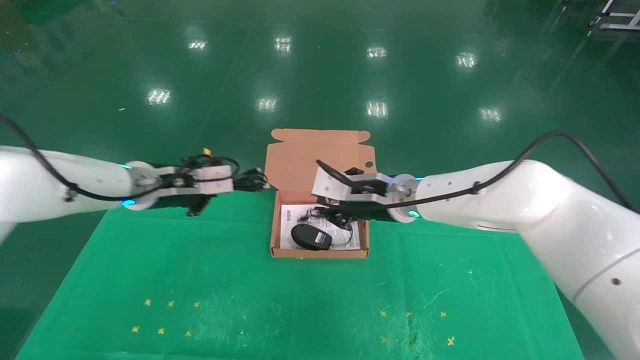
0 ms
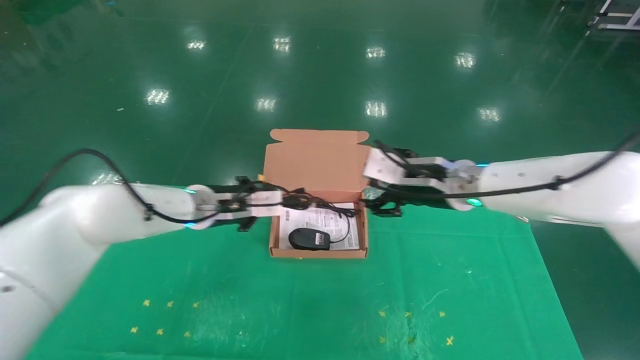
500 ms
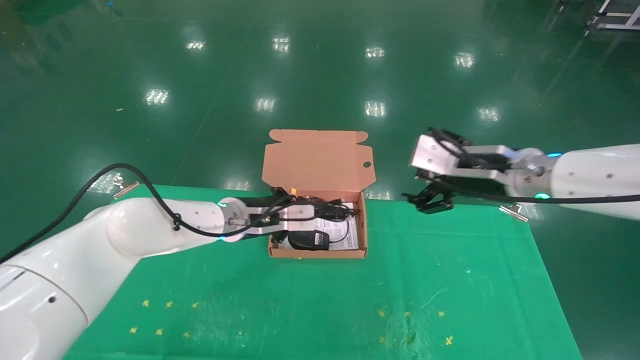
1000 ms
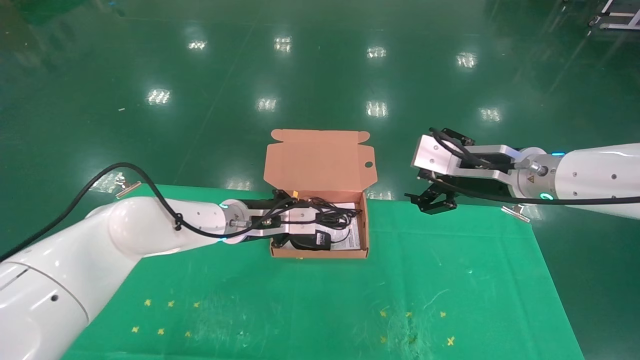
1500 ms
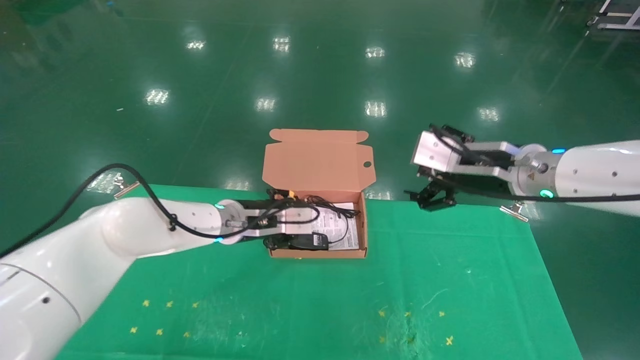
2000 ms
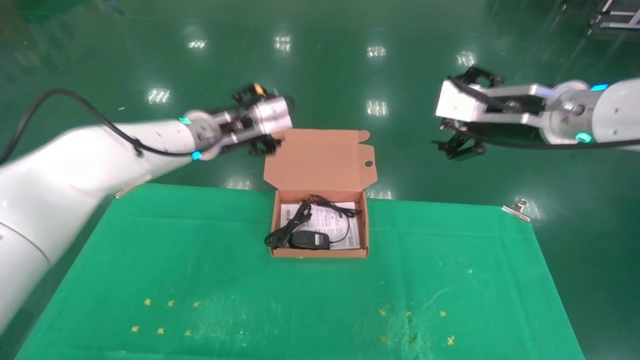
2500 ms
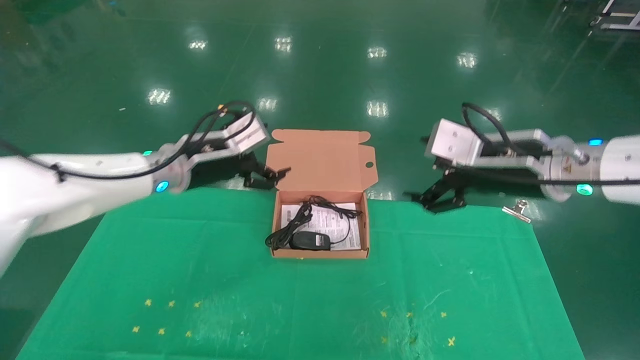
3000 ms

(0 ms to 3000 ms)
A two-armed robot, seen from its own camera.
Task of the whole recording: grasp data cable left put into box grasp mouse right put into box.
Step, 0 ms - 2000 ms: Place the mouse and power cord into the box.
0 ms - 1500 ms: The left gripper heads to the right and downward, covering about 15 cm; the right gripper heads to the right, backward and upward, covering about 15 cm, and opens up.
1500 ms - 3000 ms: The left gripper travels upward and to the left by approximately 10 cm, and opens.
